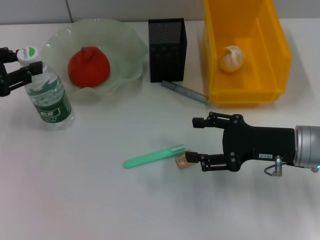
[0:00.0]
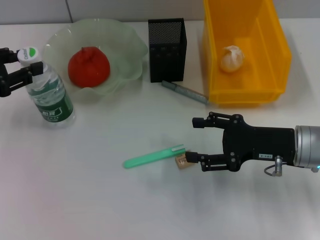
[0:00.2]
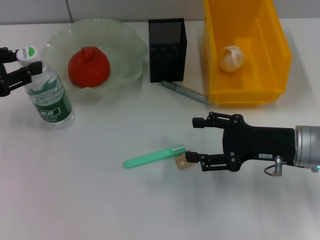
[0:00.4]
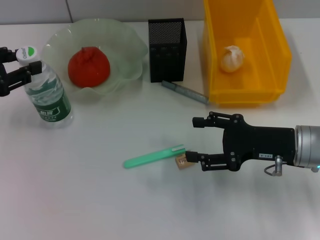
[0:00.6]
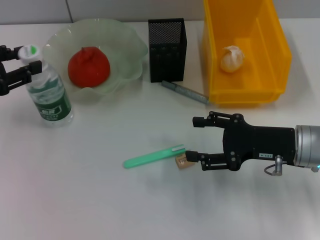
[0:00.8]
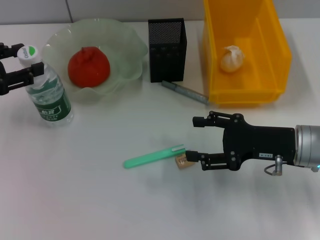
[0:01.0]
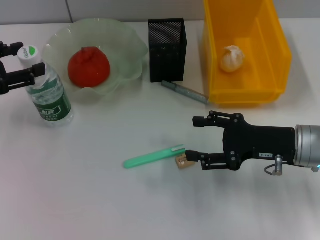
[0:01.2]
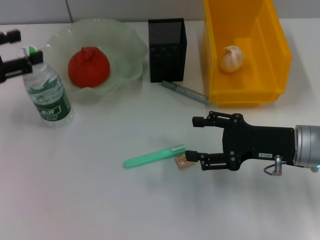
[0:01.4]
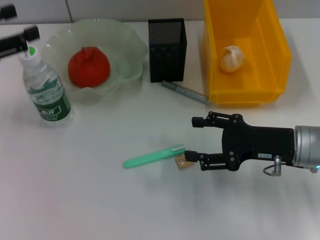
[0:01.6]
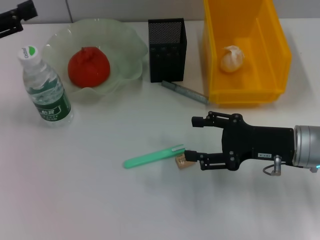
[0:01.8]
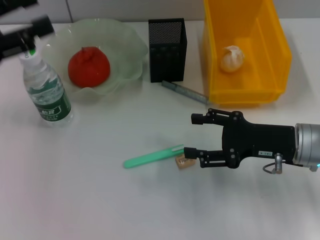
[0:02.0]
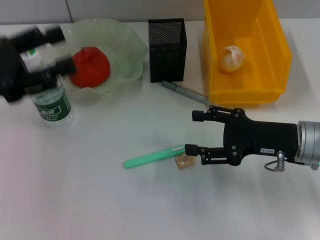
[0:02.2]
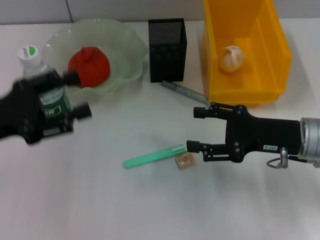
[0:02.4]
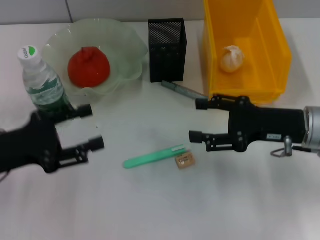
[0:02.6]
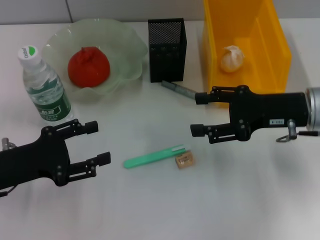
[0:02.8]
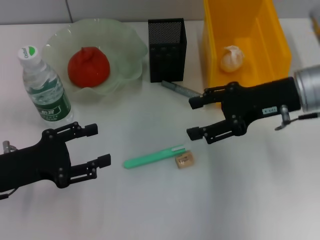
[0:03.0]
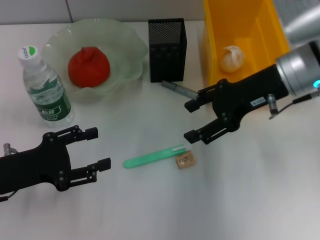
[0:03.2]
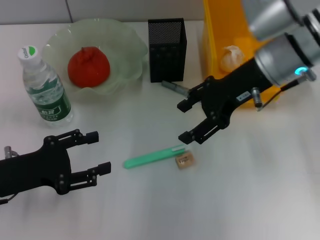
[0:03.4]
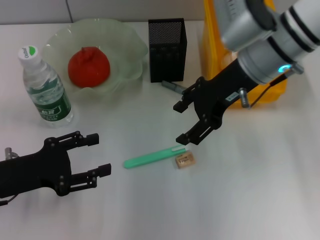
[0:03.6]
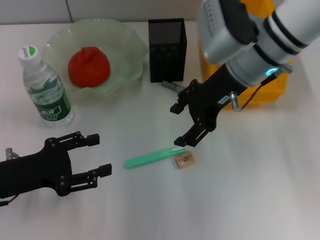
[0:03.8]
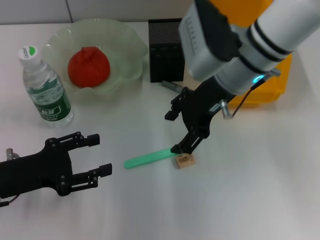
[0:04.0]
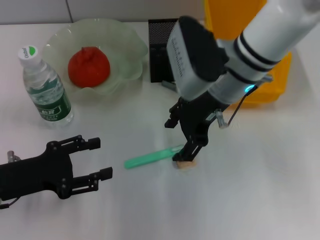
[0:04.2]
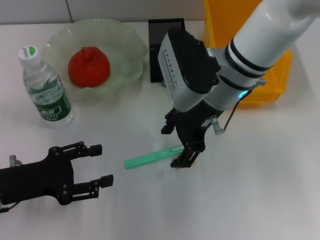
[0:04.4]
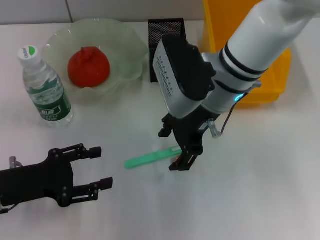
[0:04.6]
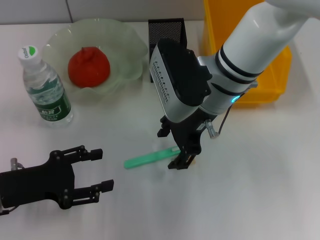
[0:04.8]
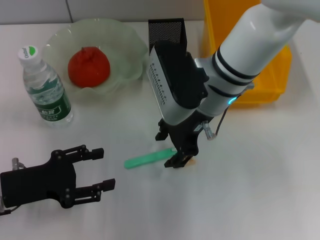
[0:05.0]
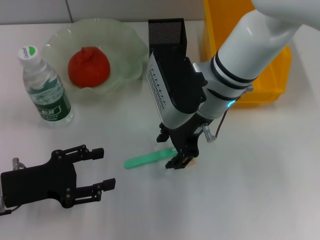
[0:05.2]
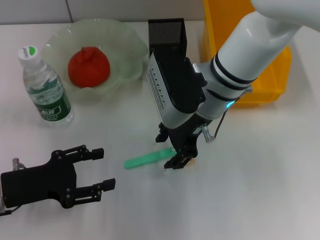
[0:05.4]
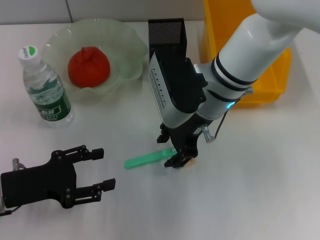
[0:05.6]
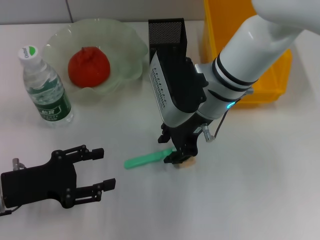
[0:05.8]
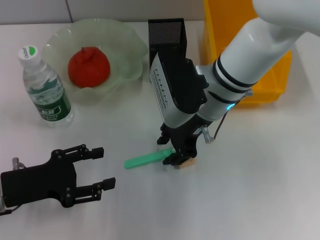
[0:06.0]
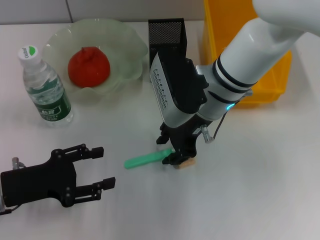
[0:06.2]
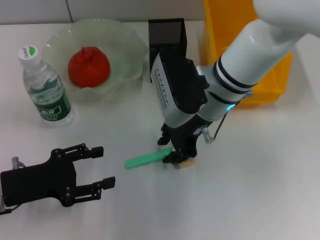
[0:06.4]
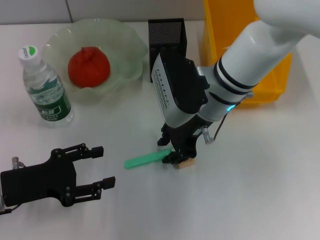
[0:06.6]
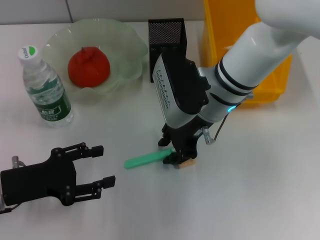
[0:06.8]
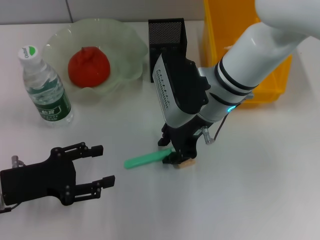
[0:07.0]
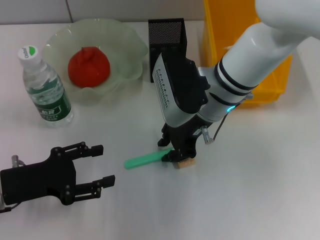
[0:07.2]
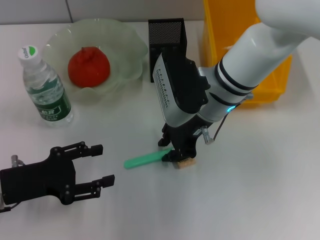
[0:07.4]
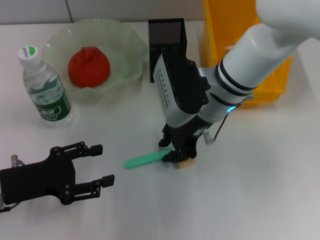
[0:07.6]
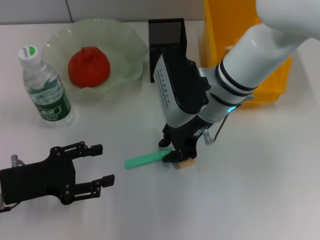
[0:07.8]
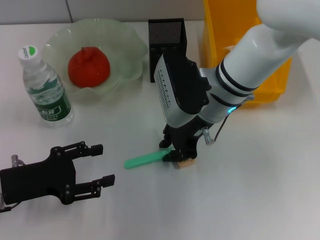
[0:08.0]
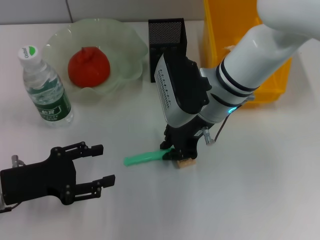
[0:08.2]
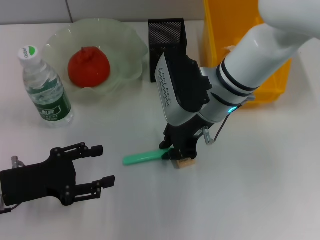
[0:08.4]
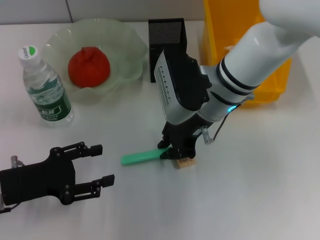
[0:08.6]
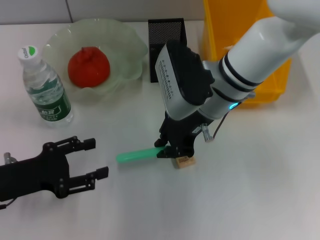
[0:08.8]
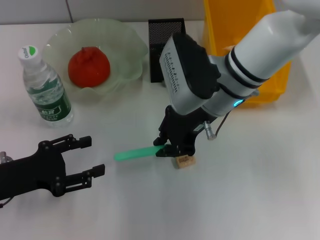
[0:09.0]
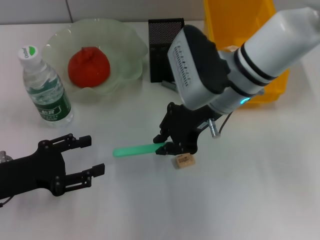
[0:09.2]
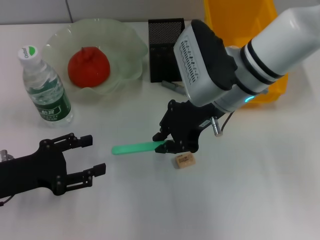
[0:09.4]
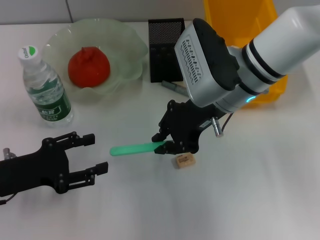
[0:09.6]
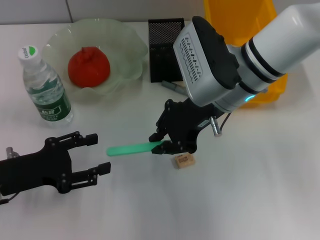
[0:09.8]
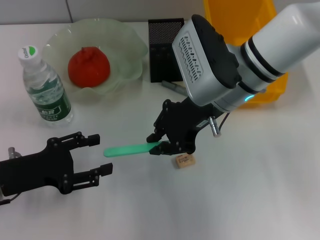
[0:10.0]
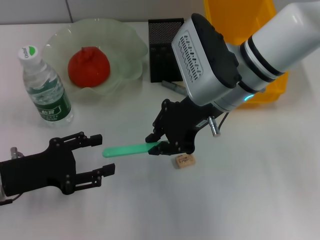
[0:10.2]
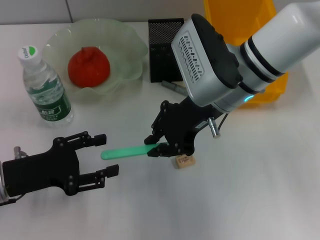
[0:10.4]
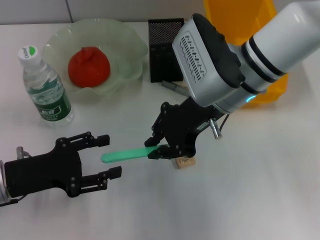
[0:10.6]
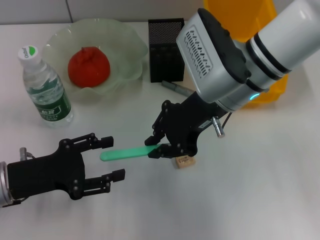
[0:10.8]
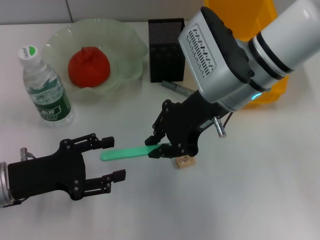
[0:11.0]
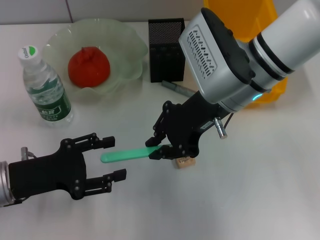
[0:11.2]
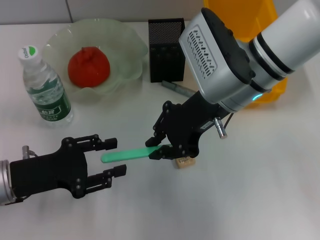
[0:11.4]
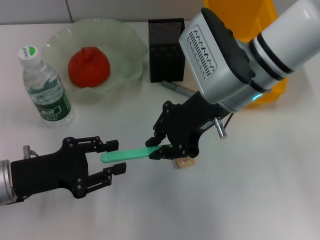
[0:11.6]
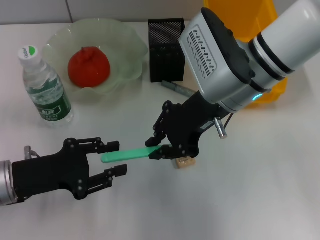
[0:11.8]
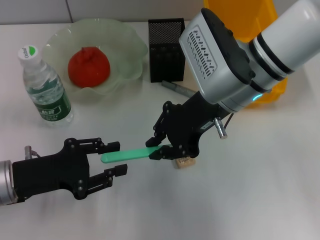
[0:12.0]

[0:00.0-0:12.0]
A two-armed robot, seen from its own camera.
Step, 0:01.6 to 0:08.2: Grab the blue utility knife with the right hand.
0:00.0 to 0:01.6: The left gripper opens up.
0:01.6 to 0:03.0: The right gripper shifts about 10 cm upward and forward. Meanwhile the left gripper travels downward, backward and to the right by approximately 15 cm.
0:03.0 to 0:04.4: The right gripper goes roughly 15 cm to the left.
0:04.4 to 0:06.0: The right gripper closes up.
0:06.0 to 0:07.6: The two grippers keep their place.
0:07.6 to 0:10.4: There are only small adjustments of the grippers.
0:10.4 to 0:12.0: The left gripper closes up.

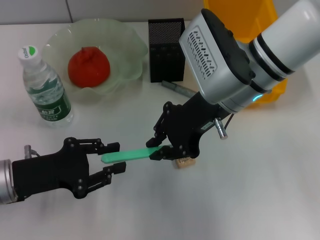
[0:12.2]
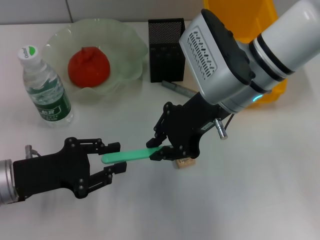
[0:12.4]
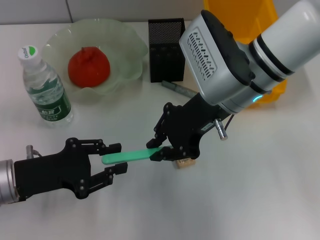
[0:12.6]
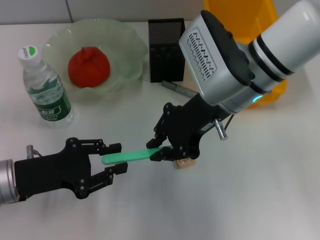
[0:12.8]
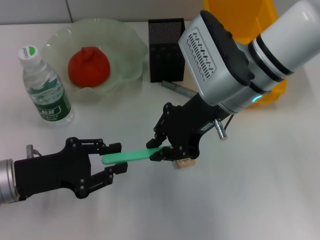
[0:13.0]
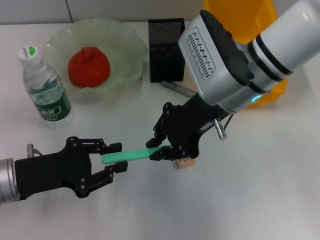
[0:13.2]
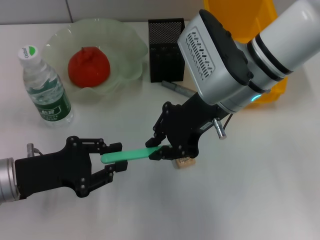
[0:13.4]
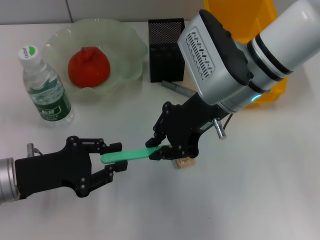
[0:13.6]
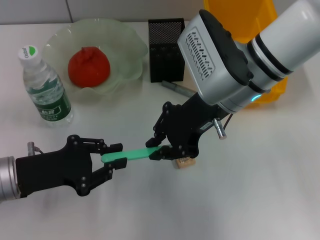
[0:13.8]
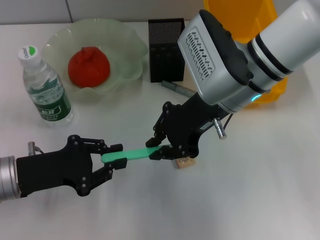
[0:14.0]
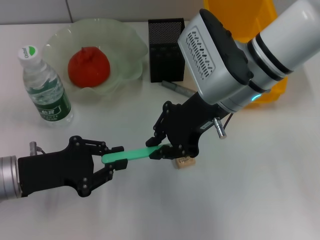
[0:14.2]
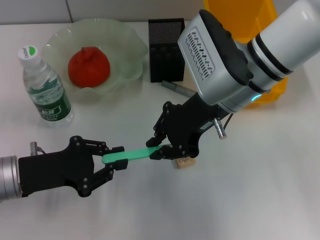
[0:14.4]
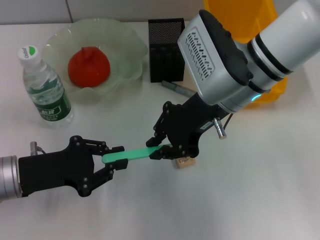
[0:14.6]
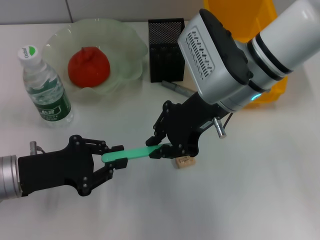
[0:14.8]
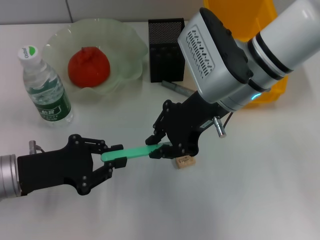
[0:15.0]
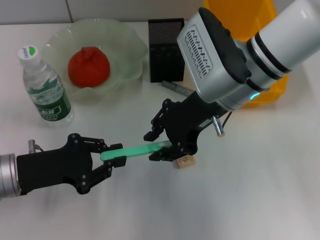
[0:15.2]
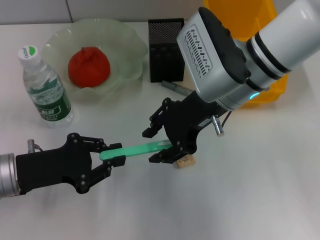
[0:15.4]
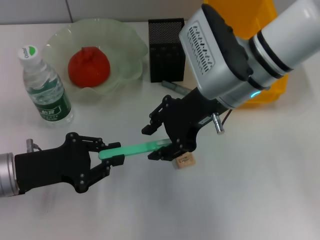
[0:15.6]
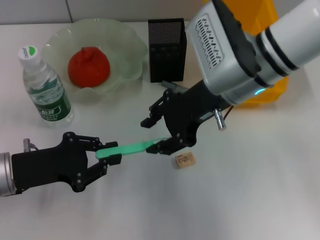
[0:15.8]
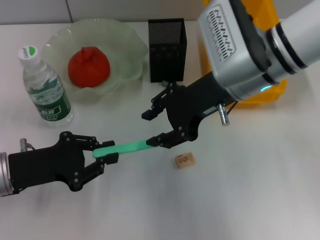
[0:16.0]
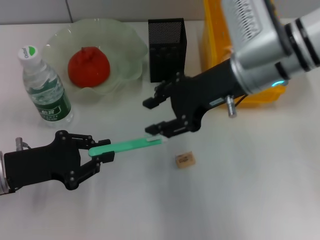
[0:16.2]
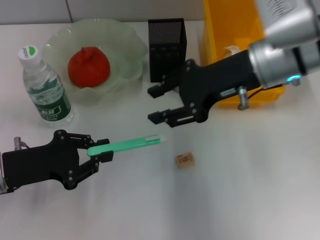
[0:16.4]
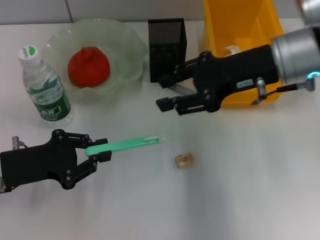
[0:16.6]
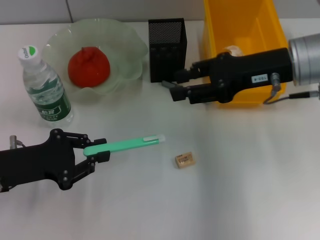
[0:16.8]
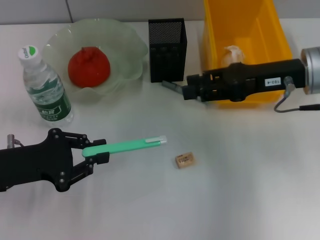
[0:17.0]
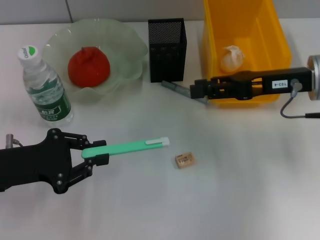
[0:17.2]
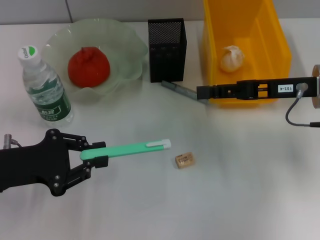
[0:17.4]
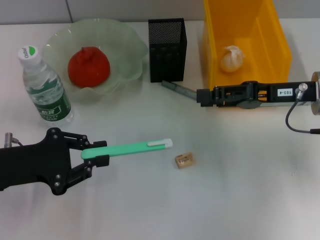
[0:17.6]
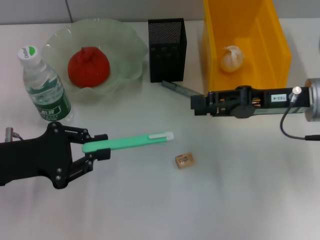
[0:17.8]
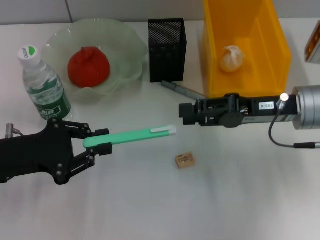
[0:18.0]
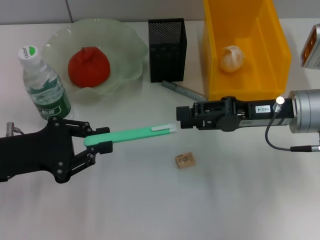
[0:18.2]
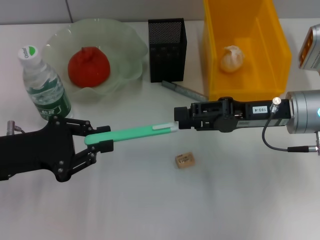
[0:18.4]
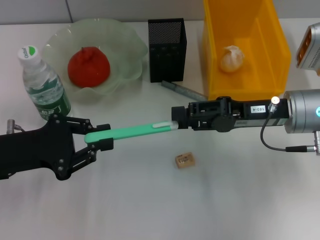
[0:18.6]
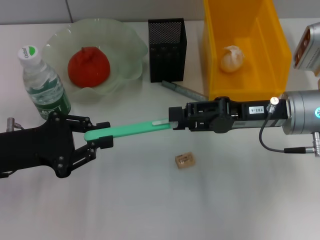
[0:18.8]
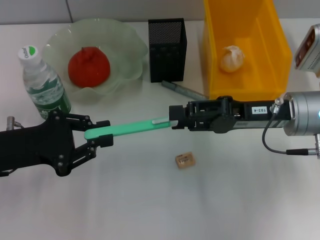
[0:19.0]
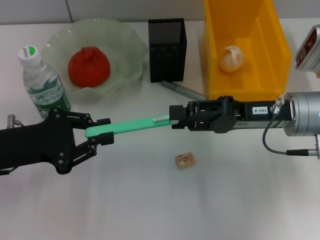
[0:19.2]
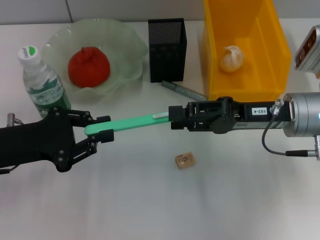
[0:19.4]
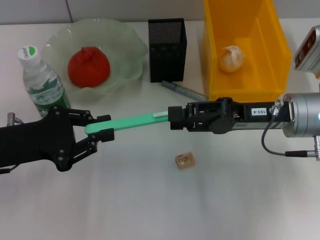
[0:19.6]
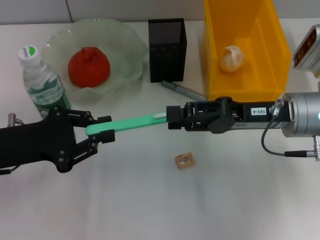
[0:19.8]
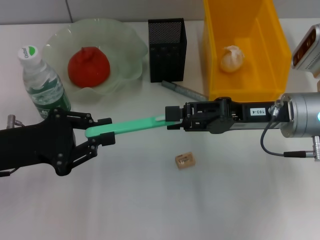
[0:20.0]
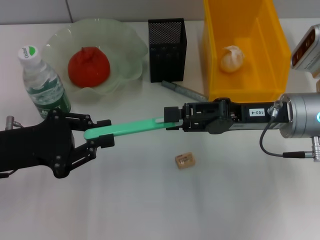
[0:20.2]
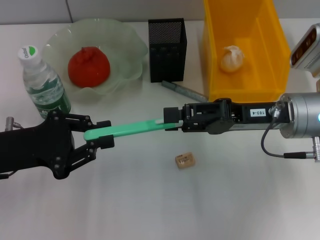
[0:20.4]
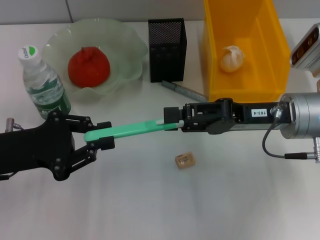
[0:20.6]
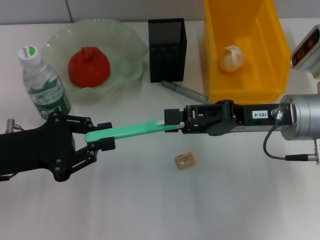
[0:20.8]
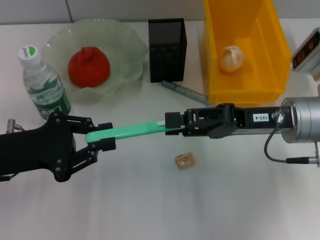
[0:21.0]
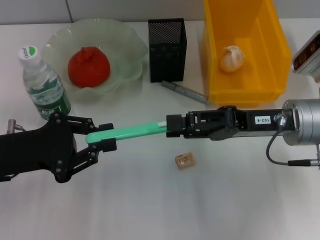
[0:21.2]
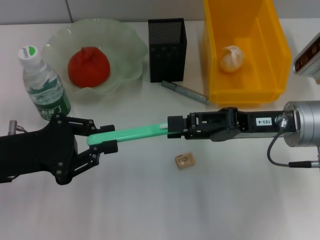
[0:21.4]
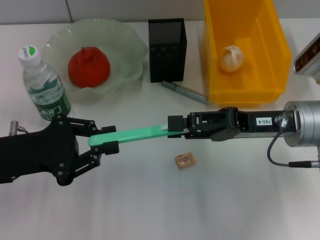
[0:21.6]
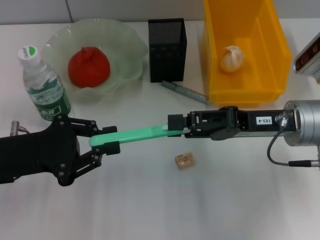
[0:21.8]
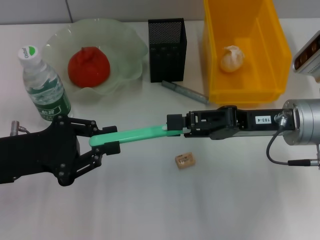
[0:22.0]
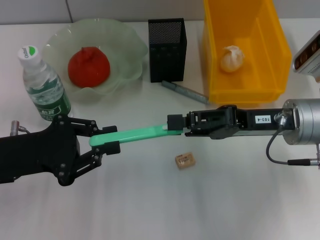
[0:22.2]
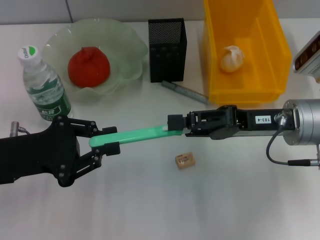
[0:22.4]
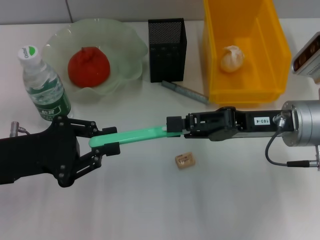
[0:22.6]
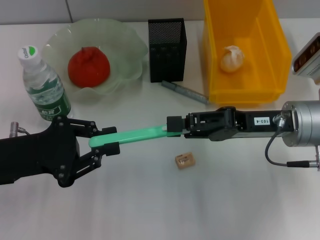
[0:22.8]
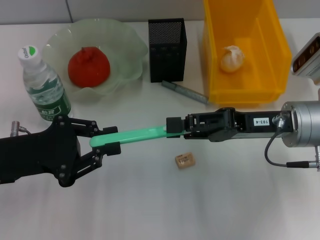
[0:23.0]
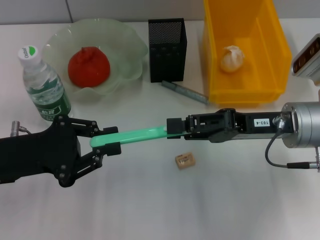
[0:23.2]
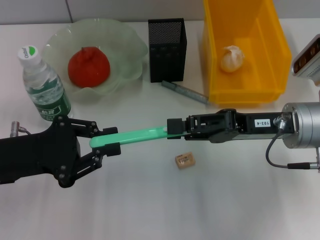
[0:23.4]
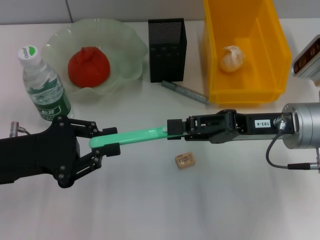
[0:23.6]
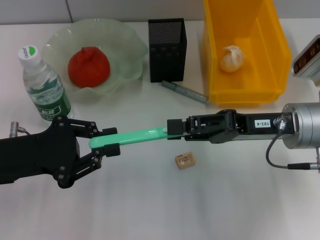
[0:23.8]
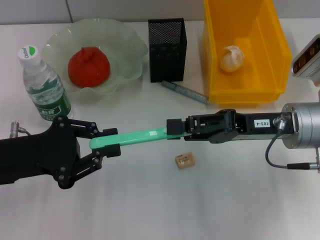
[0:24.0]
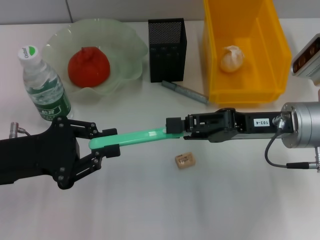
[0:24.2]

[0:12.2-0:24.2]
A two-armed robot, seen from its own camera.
Step, 0:12.2 to 0:15.4: Pass the blue utility knife from the right hand to the left hand.
0:12.2 to 0:15.2: Neither gripper changes place.
0:15.2 to 0:16.6: The right gripper goes about 10 cm to the right, and opens its fingers.
0:16.6 to 0:18.2: The right gripper moves downward, about 10 cm.
0:18.2 to 0:19.8: The grippers stay close to where they were, moving slightly.
0:19.8 to 0:22.6: Both grippers stay put.
0:22.6 to 0:24.2: Both grippers stay put.
